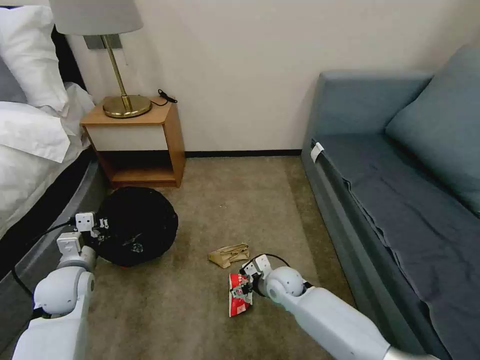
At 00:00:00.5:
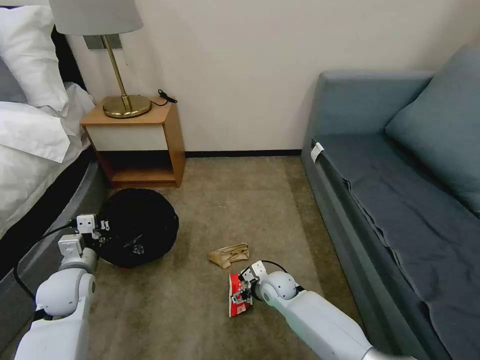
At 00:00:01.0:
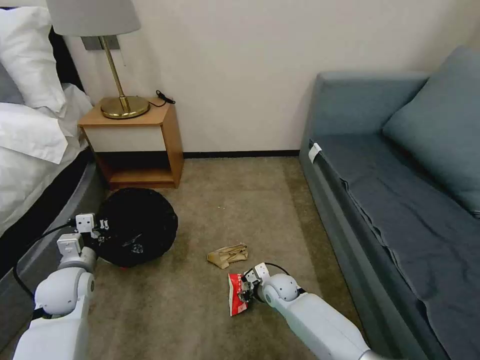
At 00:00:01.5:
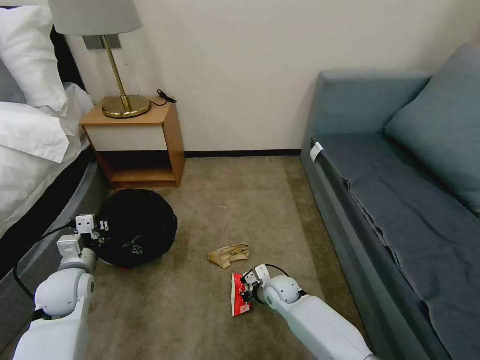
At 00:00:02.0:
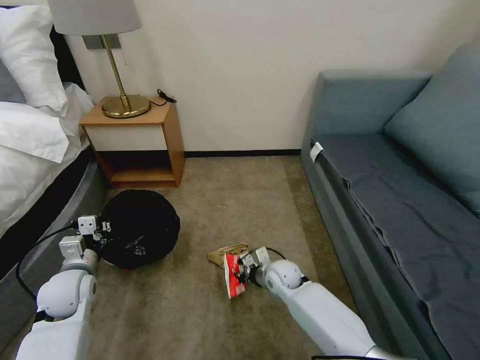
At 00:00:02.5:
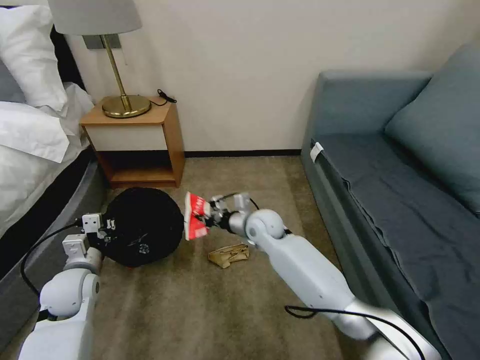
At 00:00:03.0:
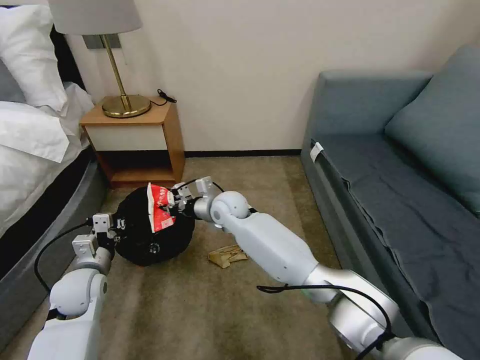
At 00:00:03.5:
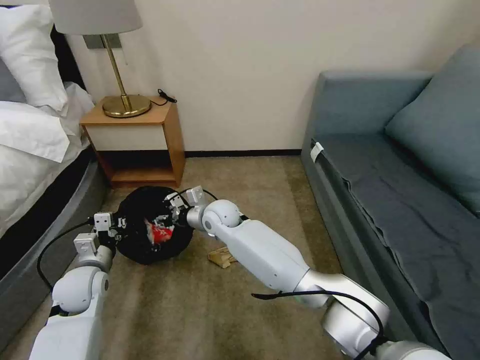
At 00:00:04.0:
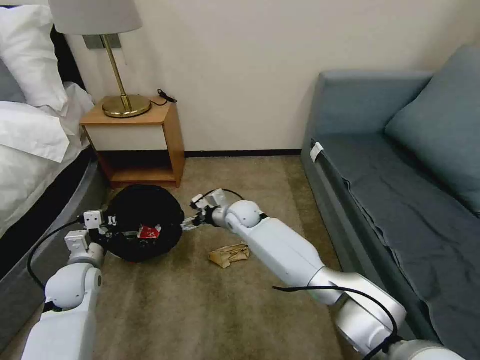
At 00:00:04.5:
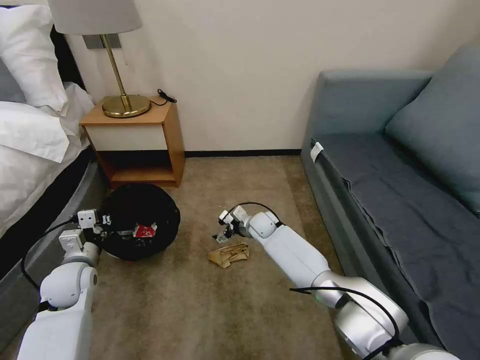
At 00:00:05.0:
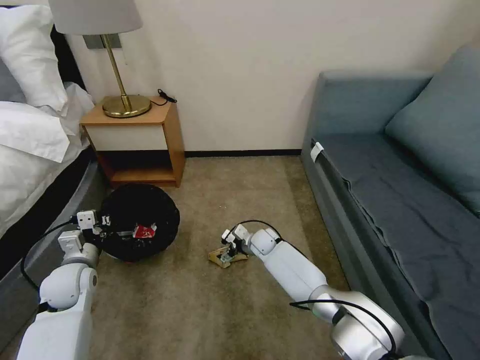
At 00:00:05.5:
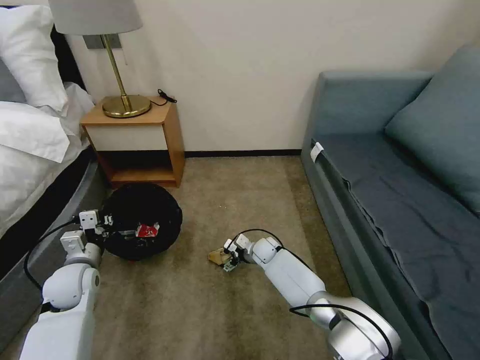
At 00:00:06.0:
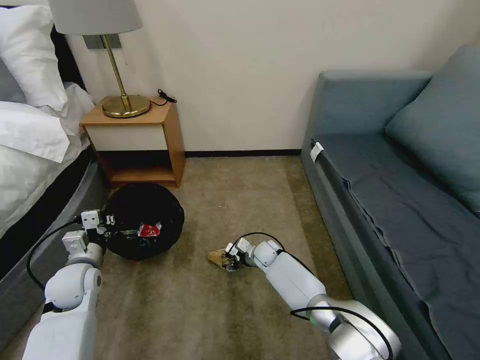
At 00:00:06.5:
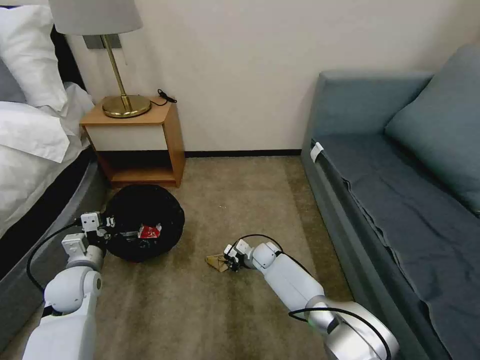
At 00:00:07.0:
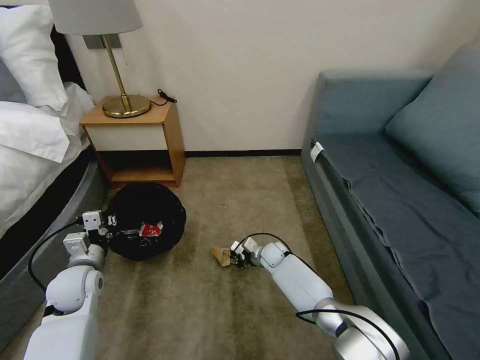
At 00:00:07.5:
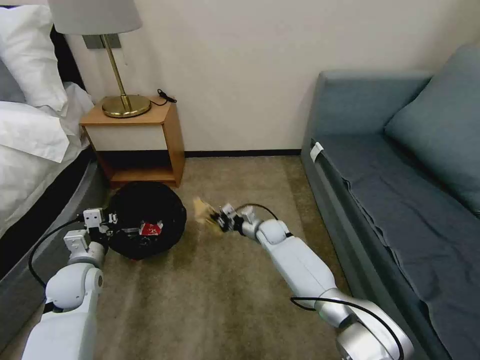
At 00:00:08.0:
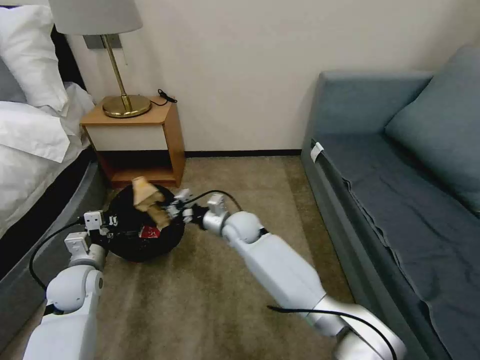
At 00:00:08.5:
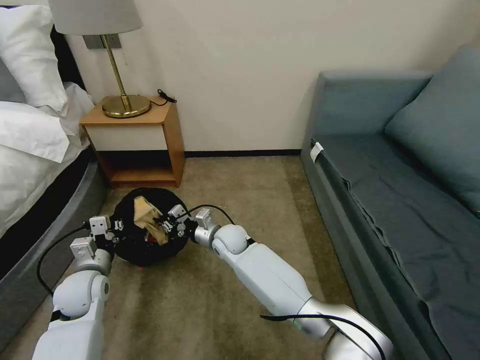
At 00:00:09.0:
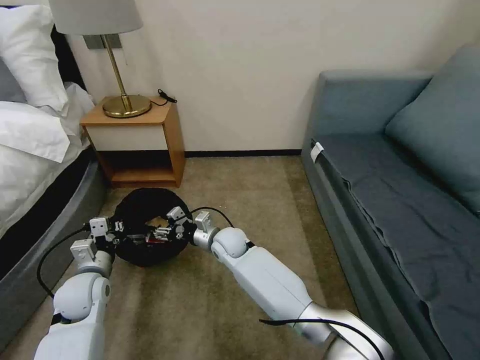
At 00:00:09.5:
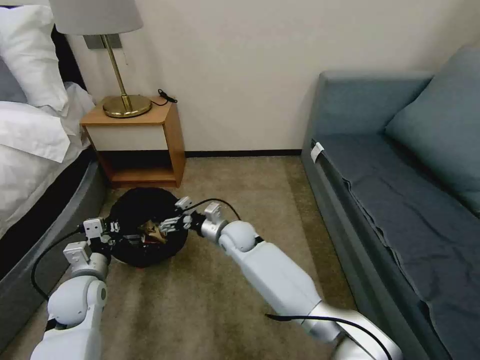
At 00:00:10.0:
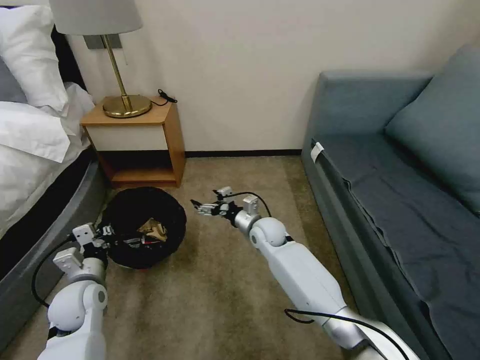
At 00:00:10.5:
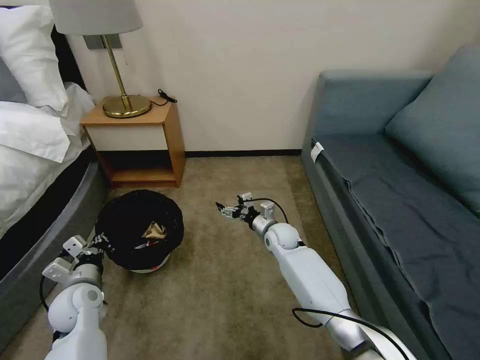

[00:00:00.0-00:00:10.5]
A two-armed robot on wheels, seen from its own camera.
Task of the whole recording: Pick up the trash bin, then pick up the garbage on the floor and place it into the trash bin.
00:00:00.0 to 00:00:02.0: The right gripper closes its fingers.
00:00:02.0 to 00:00:04.0: The right gripper travels forward, to the left and upward by roughly 20 cm, and opens its fingers.
00:00:04.0 to 00:00:06.5: The right gripper travels downward and to the right by roughly 20 cm, and closes up.
00:00:06.5 to 00:00:08.5: The right gripper heads upward and to the left, covering some 20 cm.
00:00:08.5 to 00:00:10.5: The right gripper moves to the right, approximately 15 cm, and opens.

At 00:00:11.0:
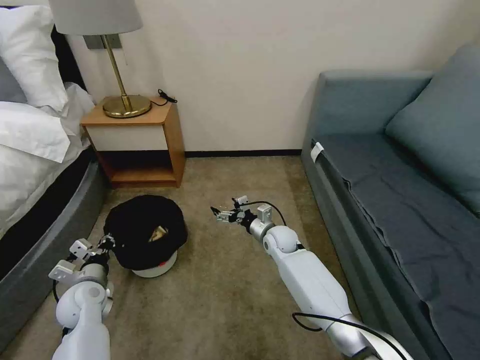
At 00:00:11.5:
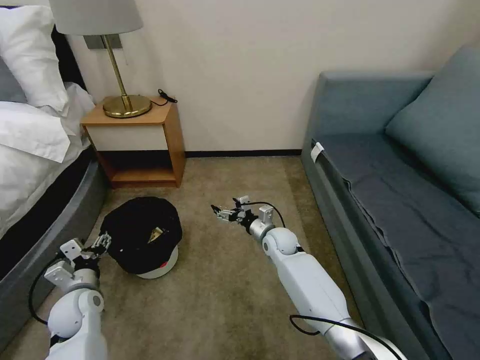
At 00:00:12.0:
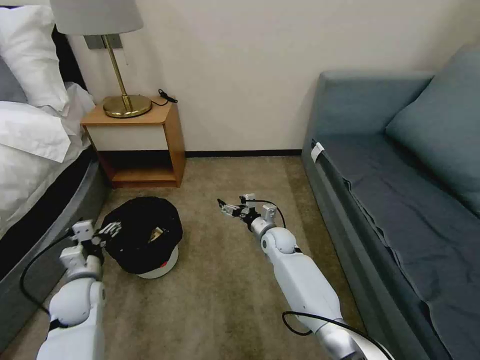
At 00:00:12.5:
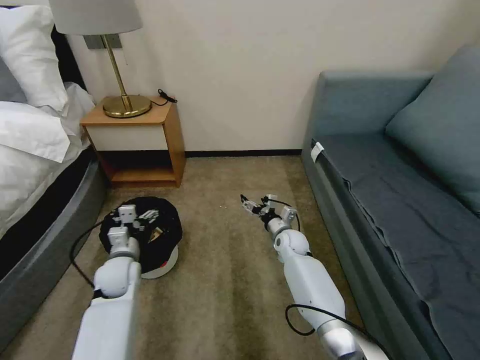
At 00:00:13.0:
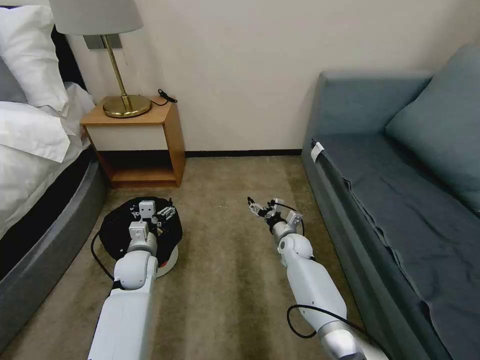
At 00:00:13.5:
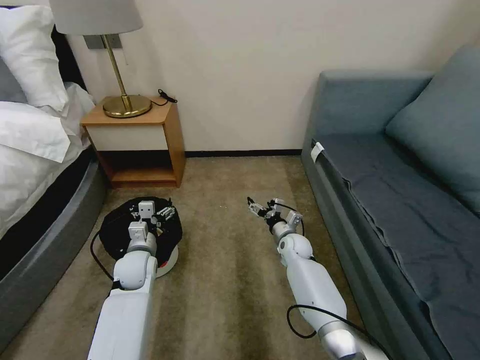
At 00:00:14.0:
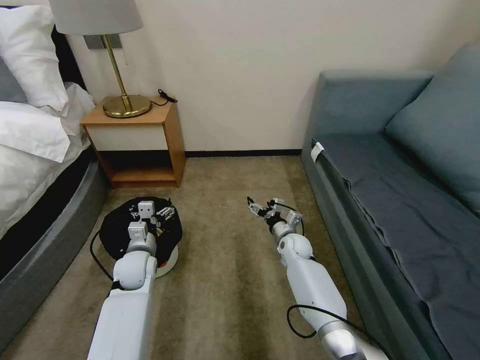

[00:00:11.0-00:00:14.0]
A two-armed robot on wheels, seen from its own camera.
Task of the whole recording: Pick up the trash bin, then pick up the garbage on the floor and place it into the trash bin.
00:00:11.0 to 00:00:12.5: The left gripper is displaced to the right and forward by some 10 cm, and opens.
00:00:12.5 to 00:00:14.0: The grippers move only a little.

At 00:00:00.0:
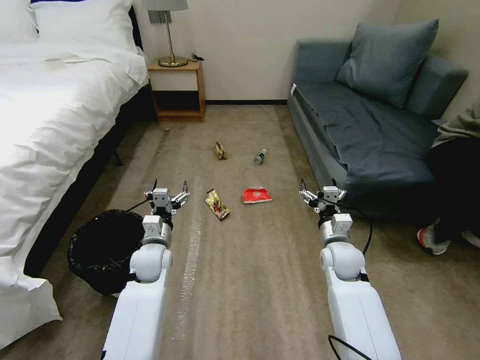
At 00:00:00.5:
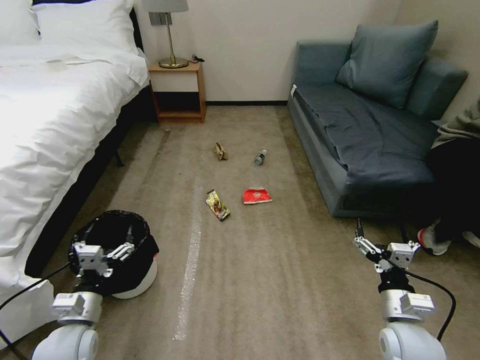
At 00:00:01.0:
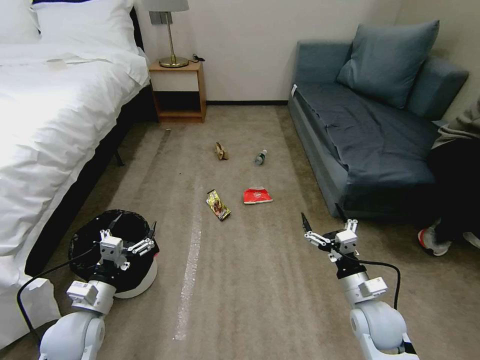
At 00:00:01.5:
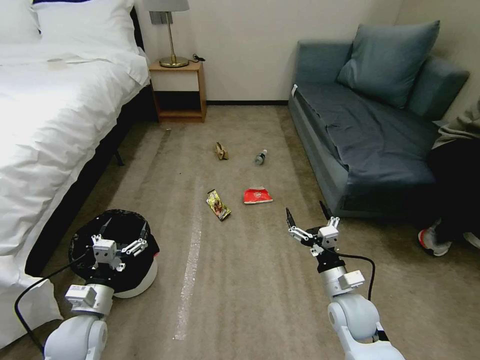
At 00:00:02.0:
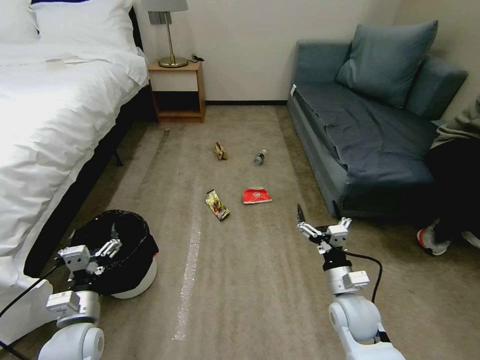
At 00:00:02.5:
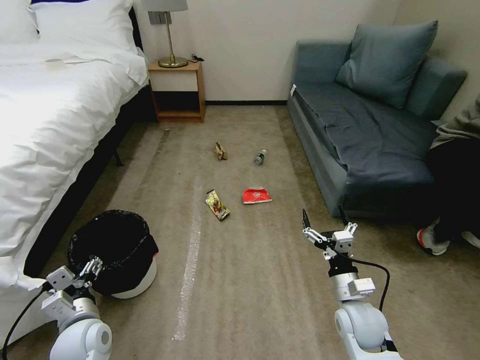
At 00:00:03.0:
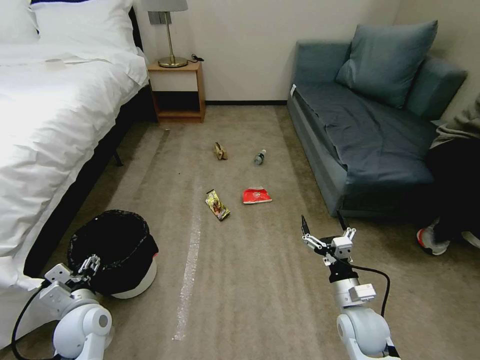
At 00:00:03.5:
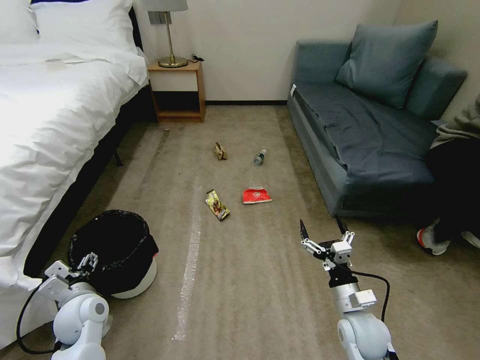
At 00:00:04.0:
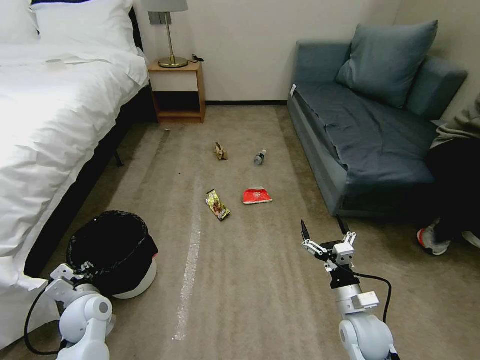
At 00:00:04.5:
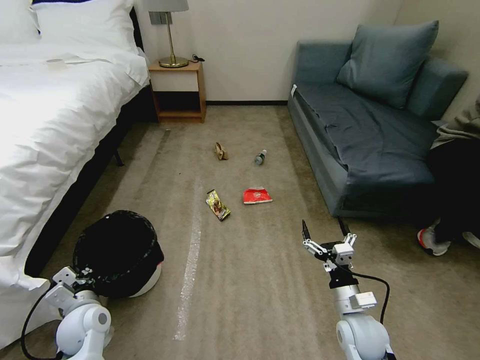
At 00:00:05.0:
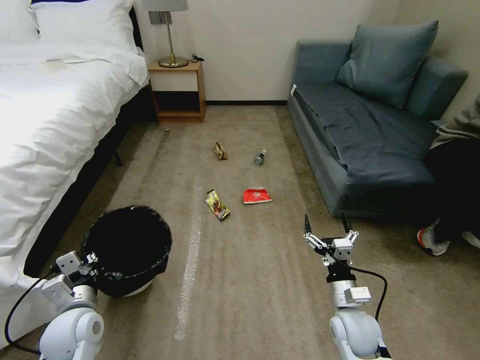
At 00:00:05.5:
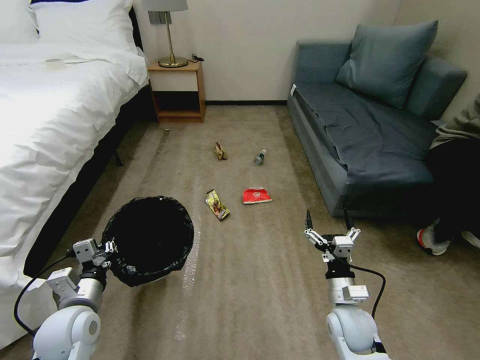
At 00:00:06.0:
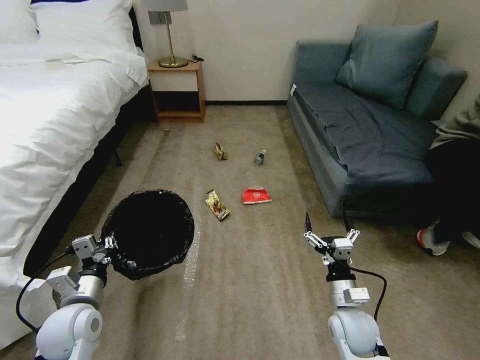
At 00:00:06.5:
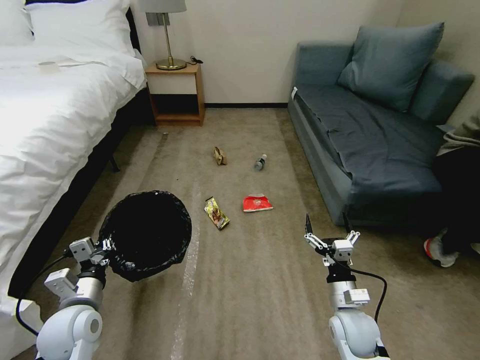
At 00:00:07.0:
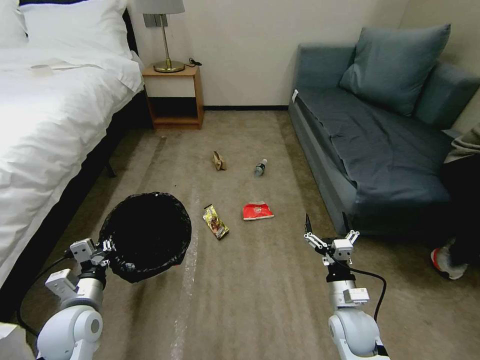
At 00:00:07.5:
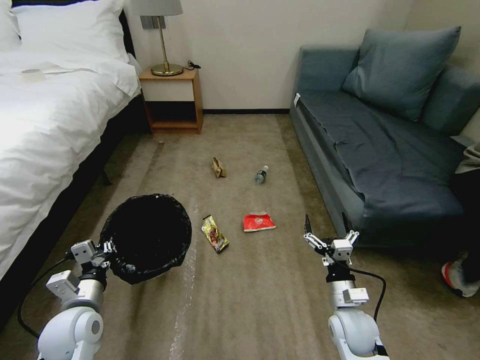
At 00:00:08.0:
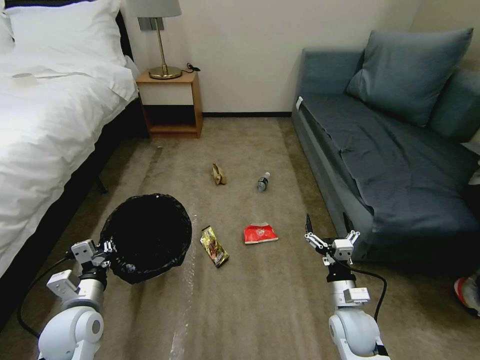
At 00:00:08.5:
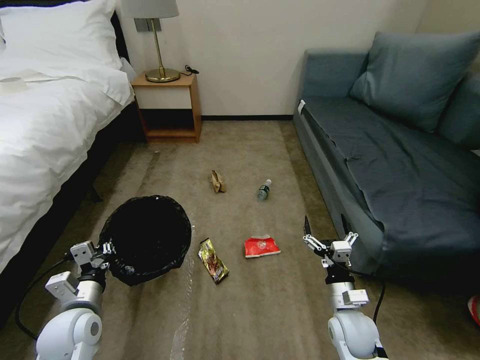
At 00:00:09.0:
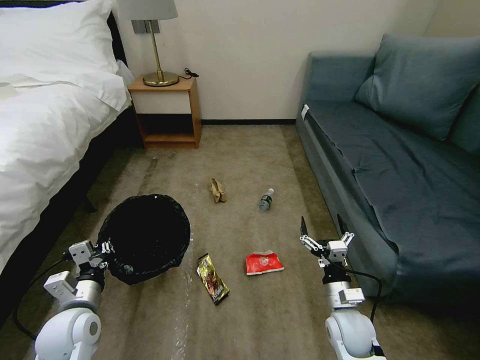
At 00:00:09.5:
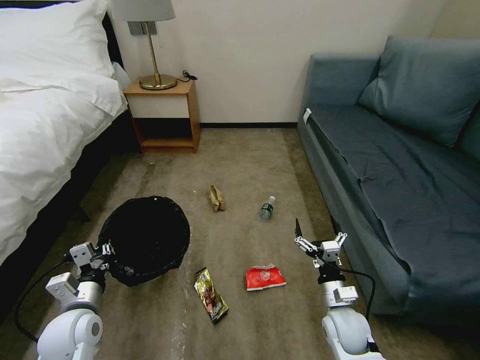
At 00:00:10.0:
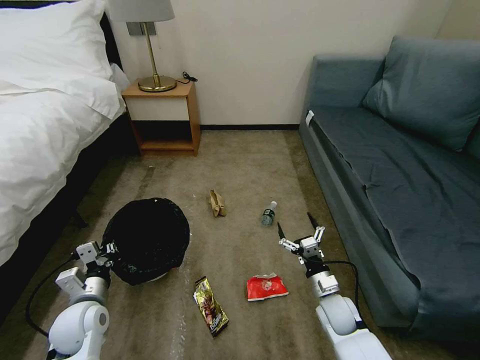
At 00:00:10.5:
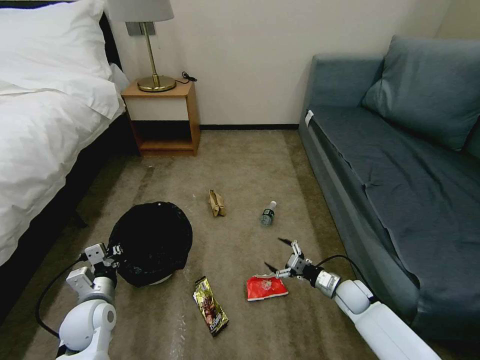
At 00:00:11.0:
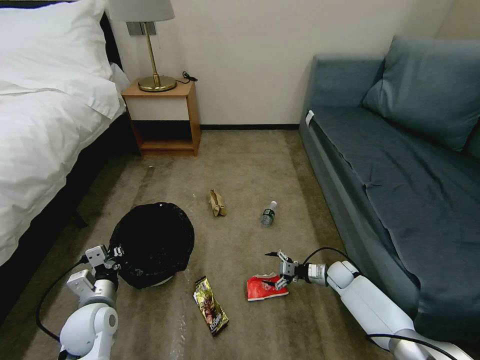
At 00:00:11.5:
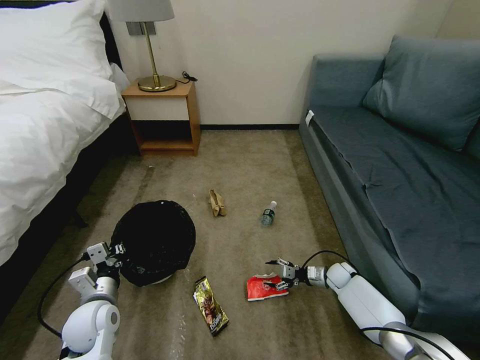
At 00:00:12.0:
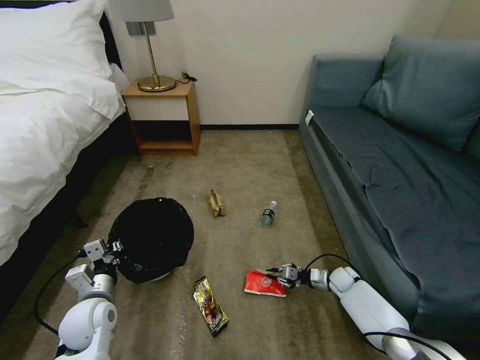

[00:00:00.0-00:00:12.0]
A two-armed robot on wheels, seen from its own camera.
Task of the whole recording: Pick up the trash bin, then pick up the garbage on the floor and place it into the trash bin.
00:00:02.0 to 00:00:04.0: The left gripper is displaced forward by some 5 cm, and closes its fingers.
00:00:04.0 to 00:00:06.0: The left gripper goes some 5 cm upward.
00:00:08.0 to 00:00:10.0: The right gripper shifts about 5 cm downward.
00:00:10.0 to 00:00:12.0: The right gripper travels forward, to the right and downward by some 20 cm, and closes.
